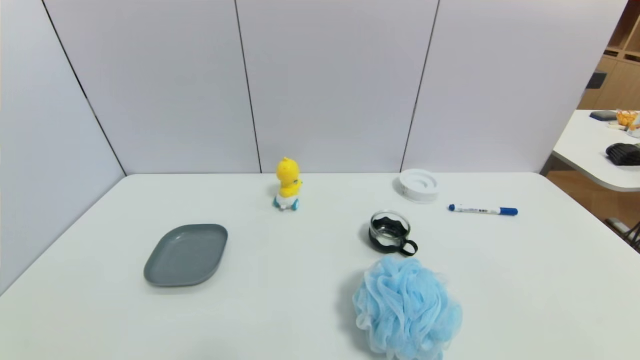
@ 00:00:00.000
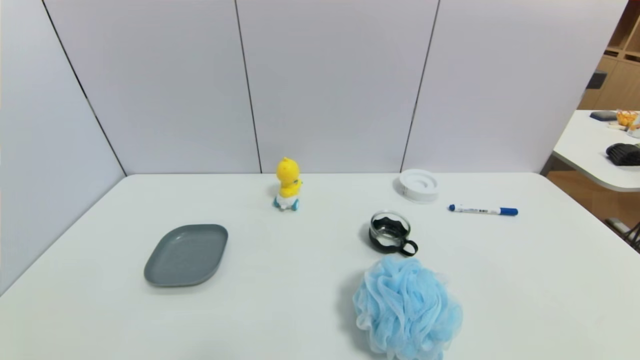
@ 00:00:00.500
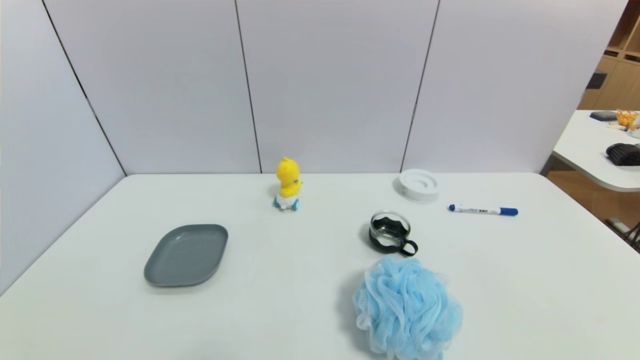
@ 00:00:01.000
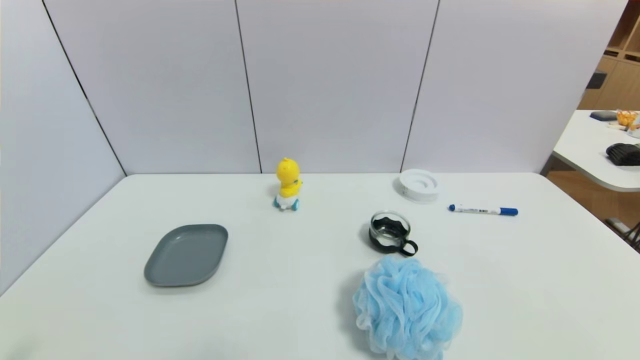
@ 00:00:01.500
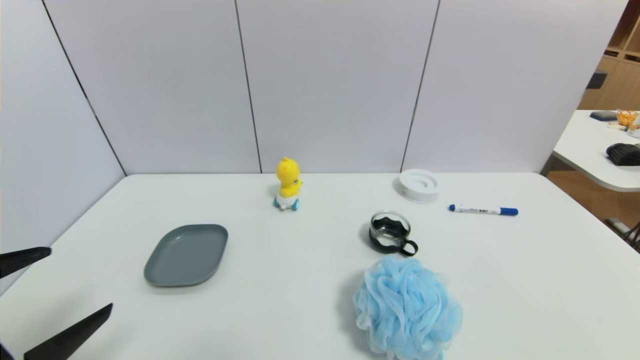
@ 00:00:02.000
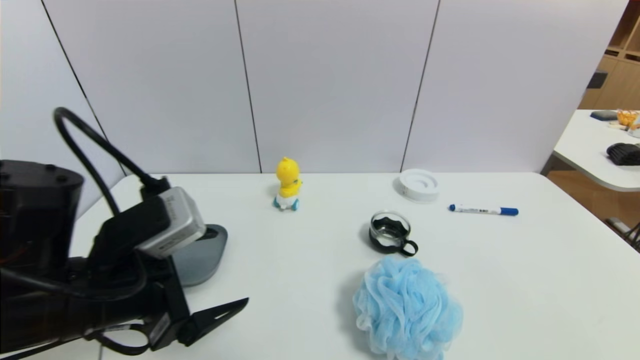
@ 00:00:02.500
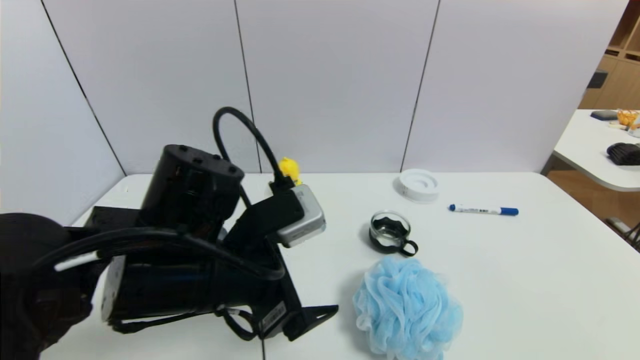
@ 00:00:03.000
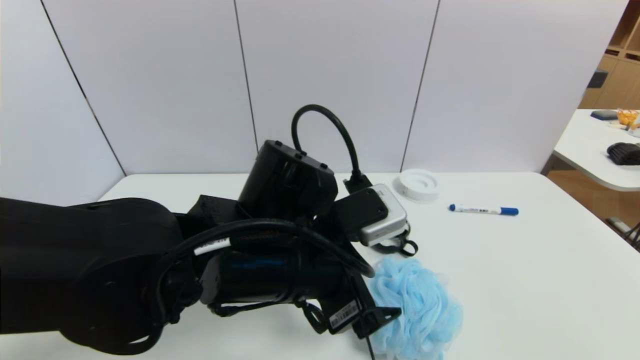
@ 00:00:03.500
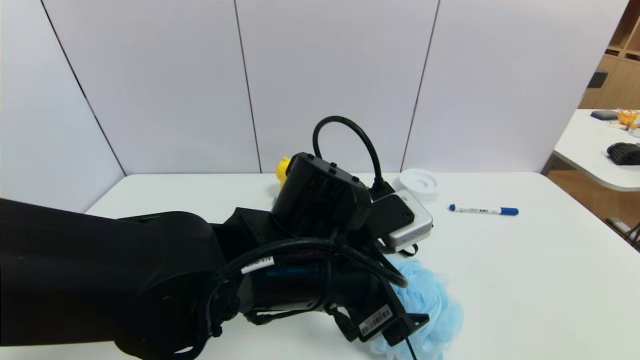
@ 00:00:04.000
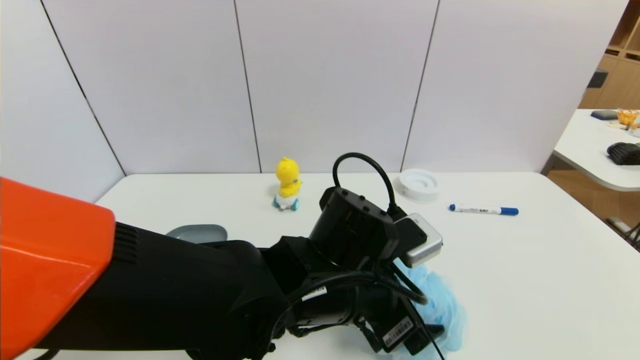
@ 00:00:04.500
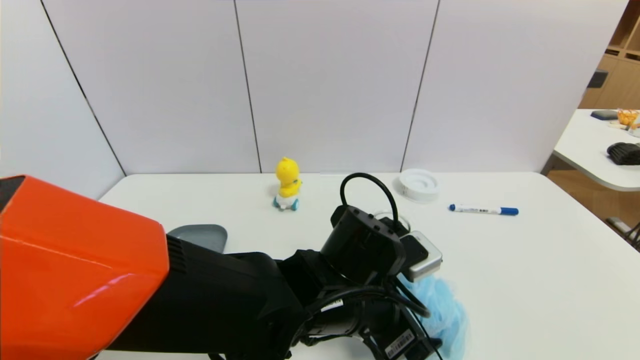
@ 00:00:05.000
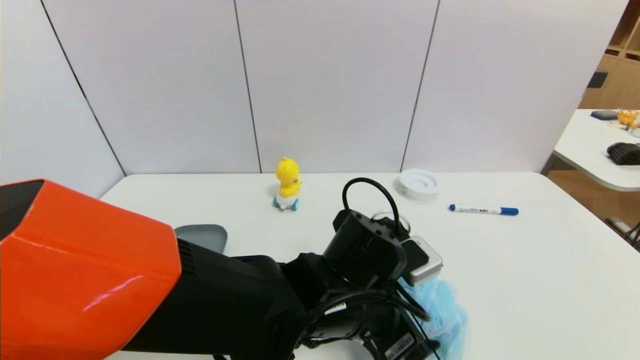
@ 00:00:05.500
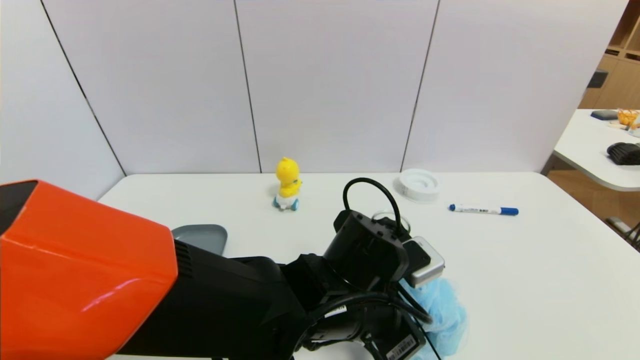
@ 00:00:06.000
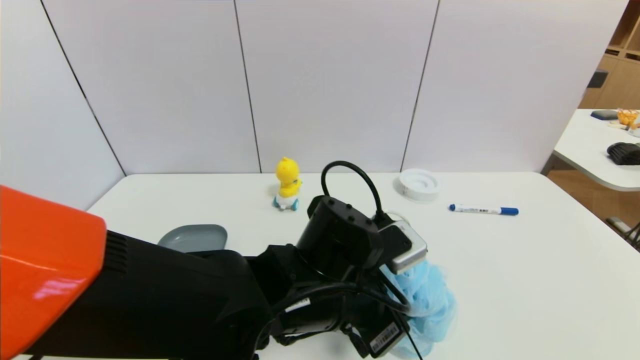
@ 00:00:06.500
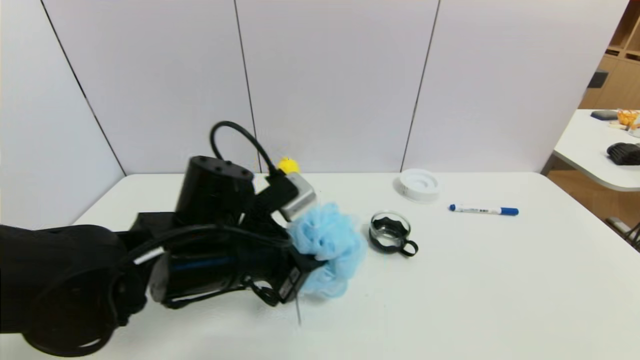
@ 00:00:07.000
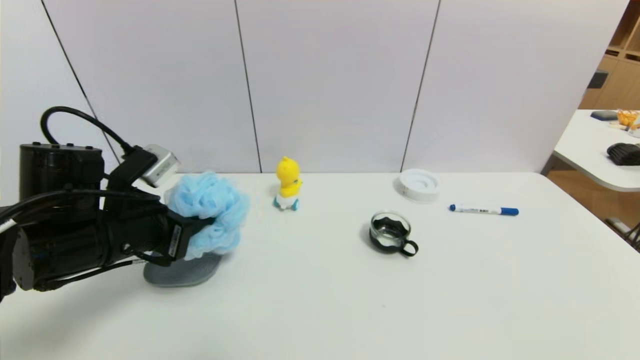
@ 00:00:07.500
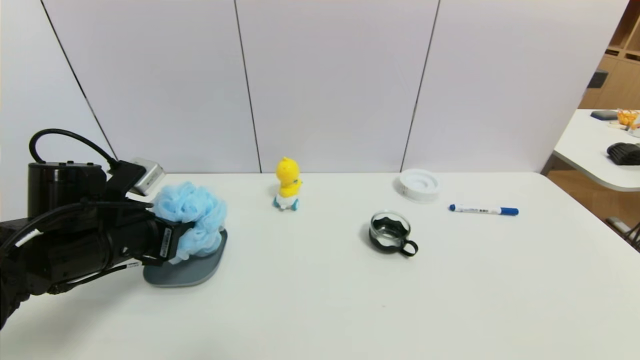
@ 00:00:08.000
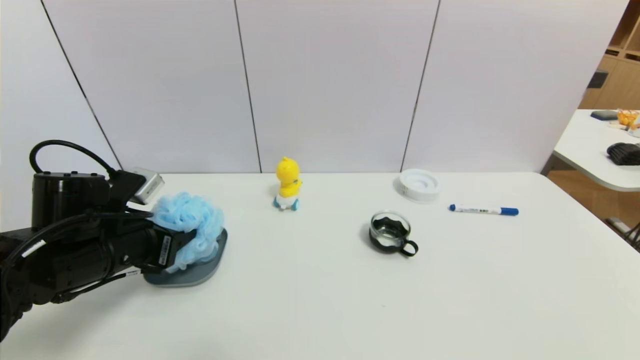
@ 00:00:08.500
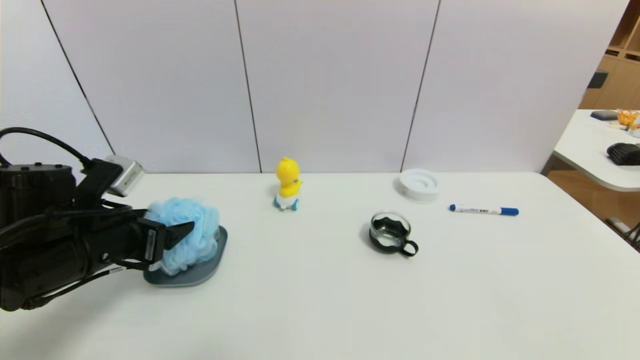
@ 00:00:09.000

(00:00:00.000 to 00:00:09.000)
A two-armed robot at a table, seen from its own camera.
Task of the whole recording: use a gripper to pick the target object and place on the dish.
Step, 00:00:00.000 - 00:00:06.000: Grasp the shower sphere with the left gripper.
00:00:00.000 - 00:00:02.000: The left gripper is displaced upward and forward by roughly 15 cm.
00:00:02.000 - 00:00:04.500: The left gripper is displaced to the right and forward by roughly 30 cm.
00:00:04.500 - 00:00:07.000: The left gripper goes about 15 cm to the left, and closes up.
00:00:07.000 - 00:00:09.000: The left gripper is displaced to the left by approximately 15 cm, and opens up.

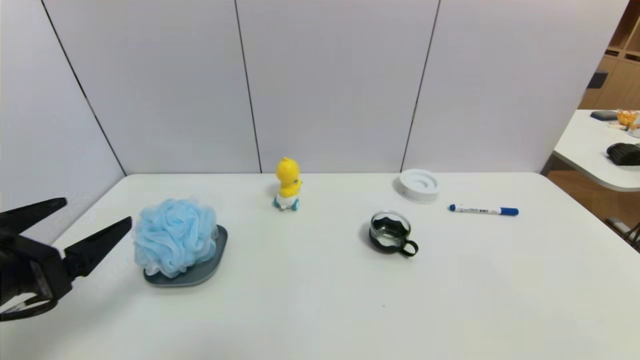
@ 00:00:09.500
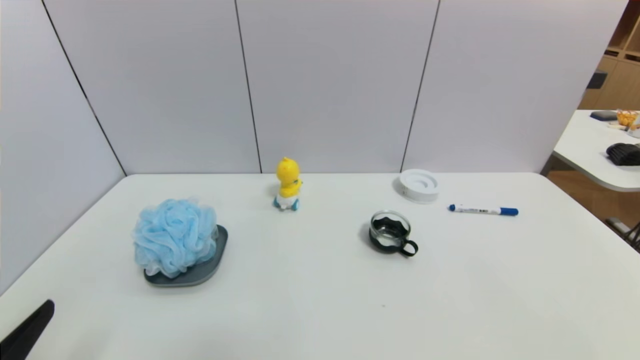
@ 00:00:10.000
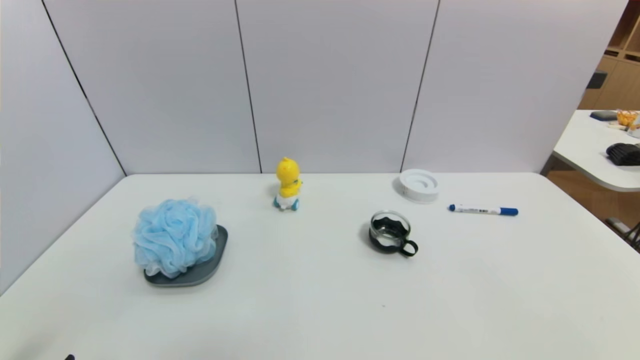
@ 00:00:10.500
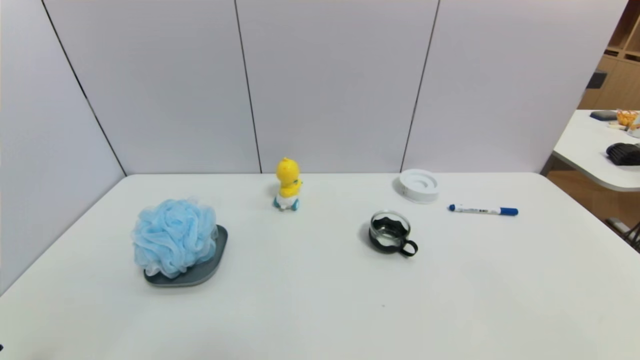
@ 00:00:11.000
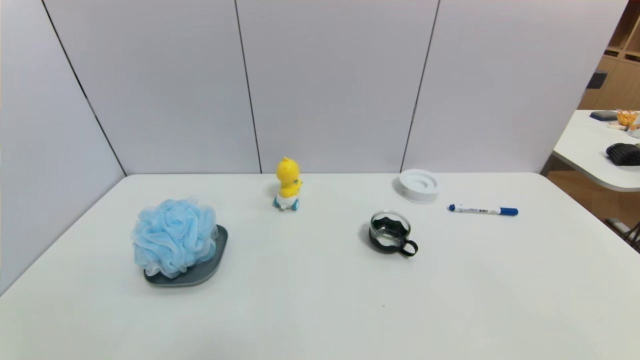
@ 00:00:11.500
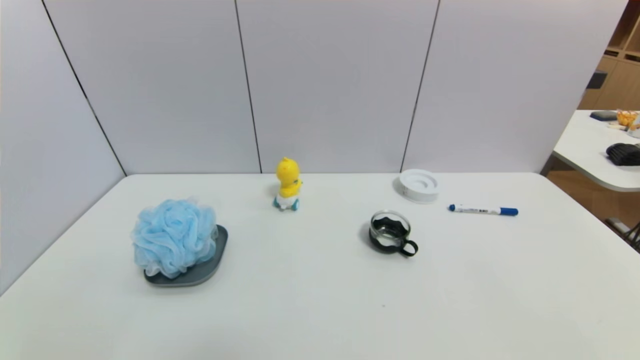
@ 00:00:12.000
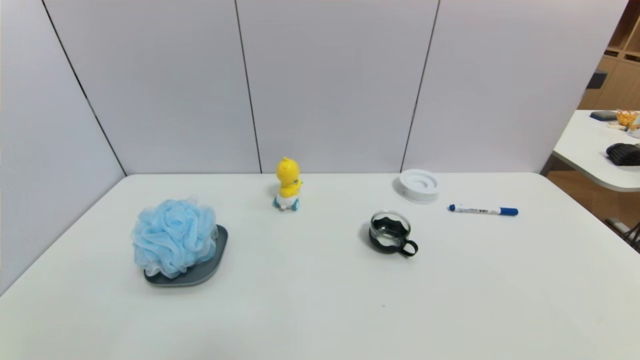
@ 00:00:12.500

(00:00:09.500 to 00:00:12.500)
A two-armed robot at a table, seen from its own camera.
Task of the whole recording: use a gripper to pick the target object and place on the dish.
00:00:09.500 - 00:00:11.000: The left gripper is displaced backward and downward by some 15 cm.
